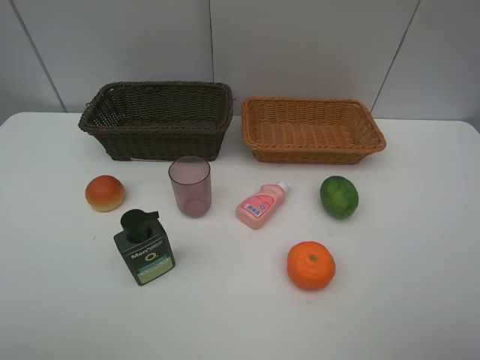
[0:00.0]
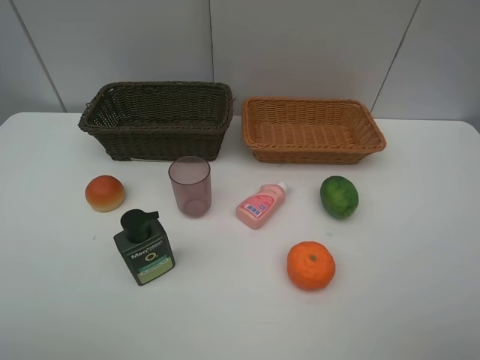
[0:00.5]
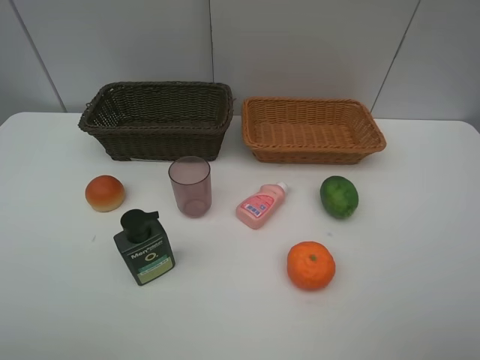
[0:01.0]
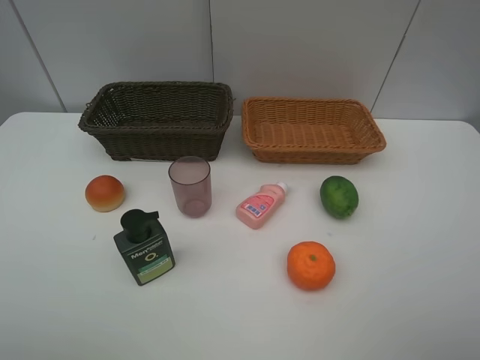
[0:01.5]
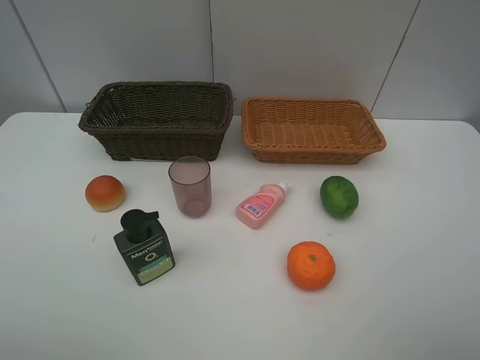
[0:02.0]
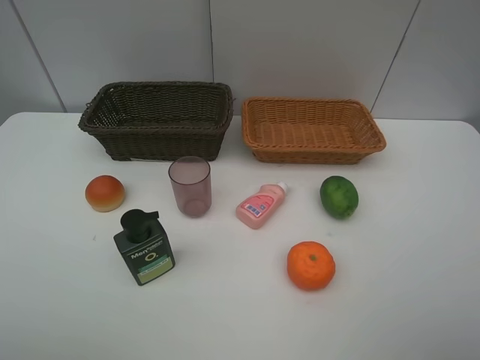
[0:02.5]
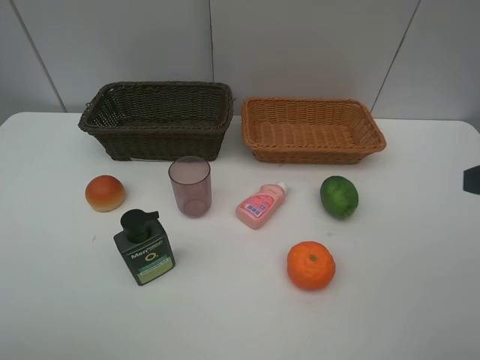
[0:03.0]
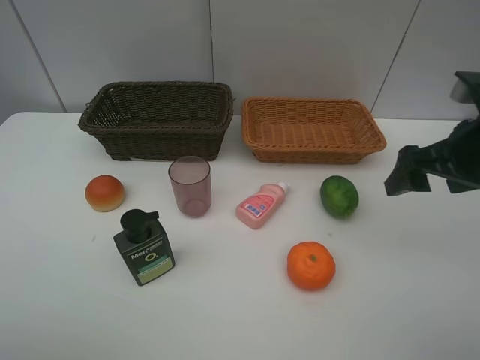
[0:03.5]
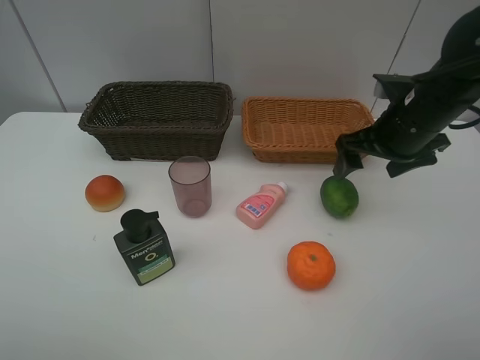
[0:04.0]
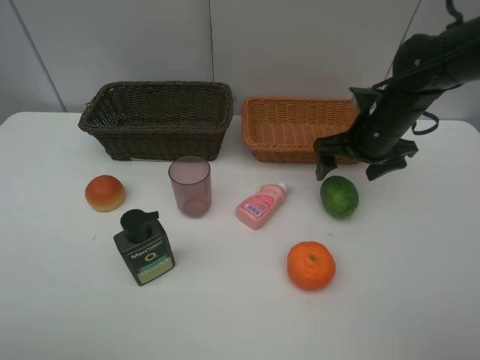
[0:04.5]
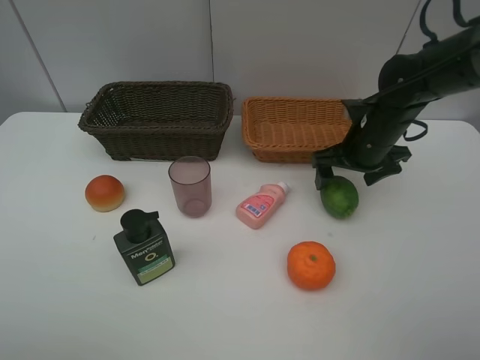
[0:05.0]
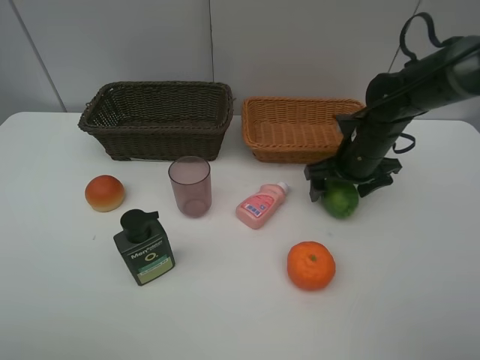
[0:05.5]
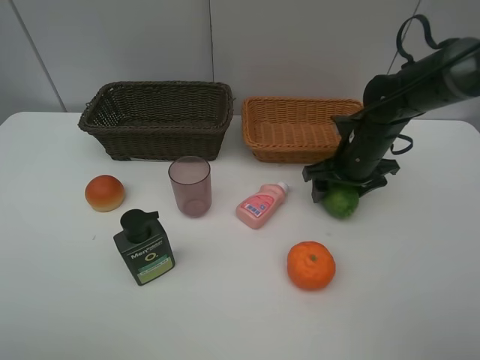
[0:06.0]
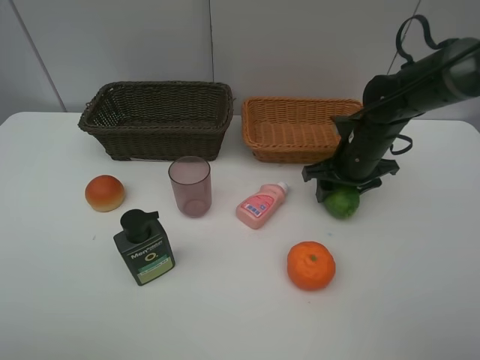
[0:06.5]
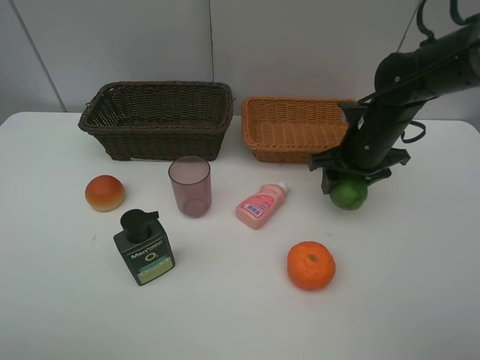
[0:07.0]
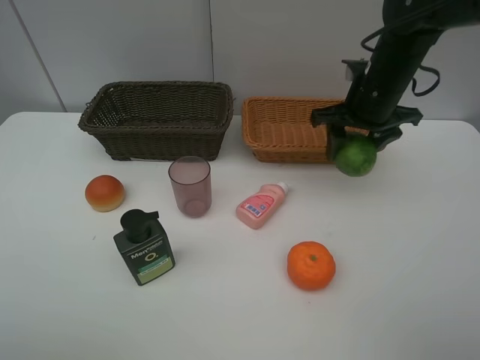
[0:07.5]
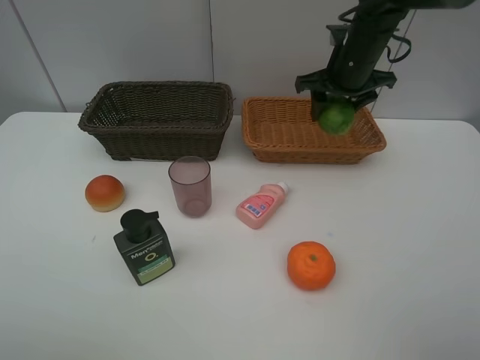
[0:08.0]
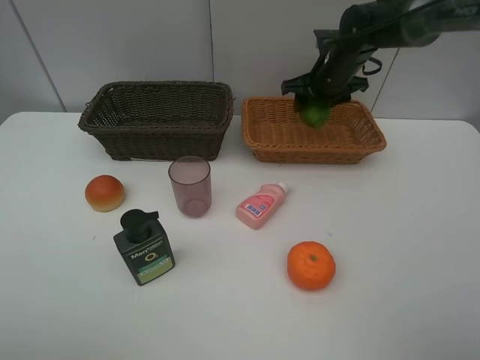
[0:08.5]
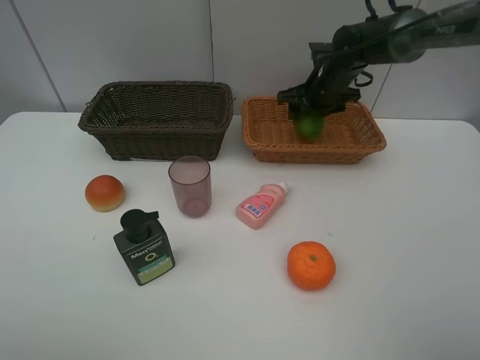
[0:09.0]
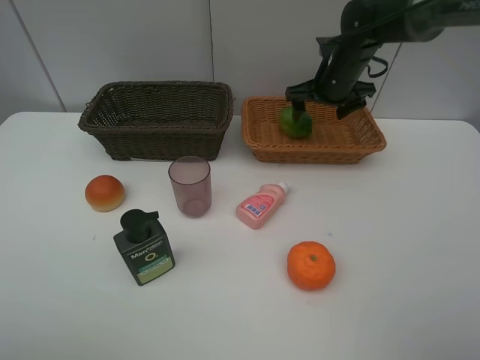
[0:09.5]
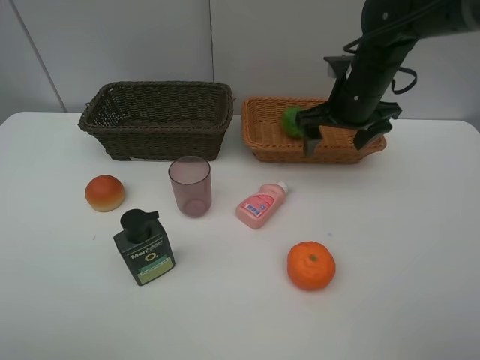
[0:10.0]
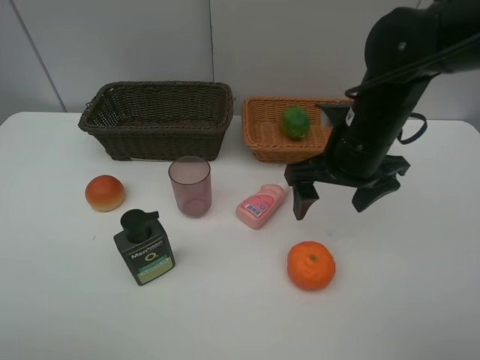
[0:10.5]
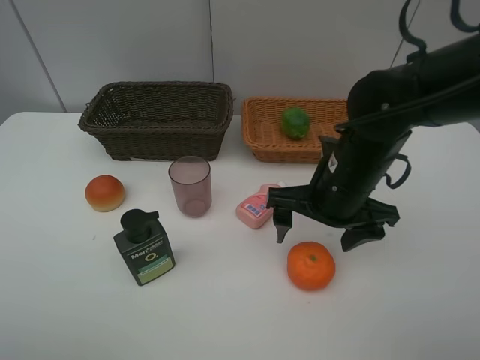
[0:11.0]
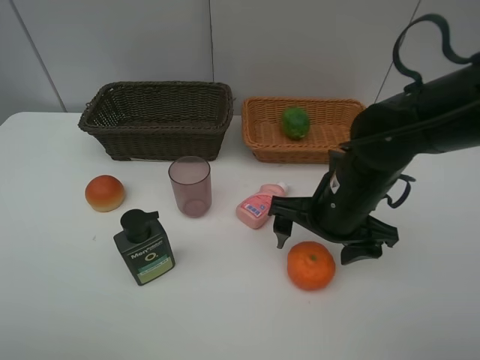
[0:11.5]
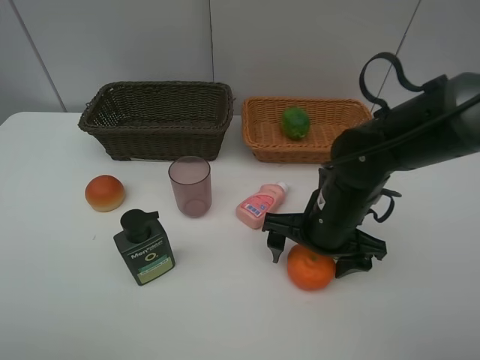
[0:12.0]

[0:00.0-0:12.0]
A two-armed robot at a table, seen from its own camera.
Task of the whole recording: place multiple objects separately in different baskets.
0:00.0 to 0:02.0: Neither gripper changes place.
0:02.0 to 0:04.0: The right gripper heads forward, covering roughly 30 cm.
0:04.0 to 0:06.0: The right gripper goes roughly 10 cm downward, and closes its fingers.
0:06.0 to 0:08.0: The right gripper heads upward and forward, covering roughly 15 cm.
0:08.0 to 0:10.0: The right gripper heads backward, covering approximately 5 cm, and opens.
0:10.0 to 0:12.0: The right gripper shifts some 15 cm backward and downward.

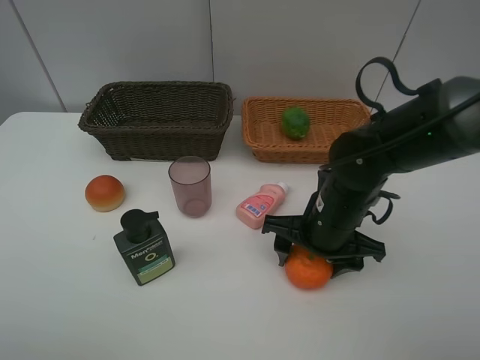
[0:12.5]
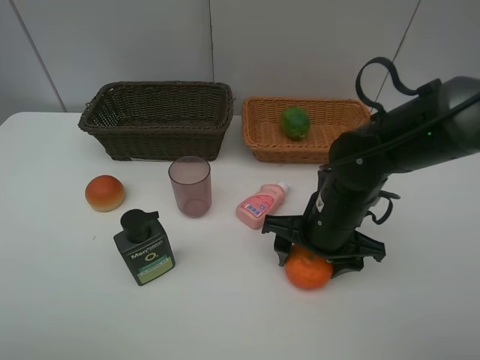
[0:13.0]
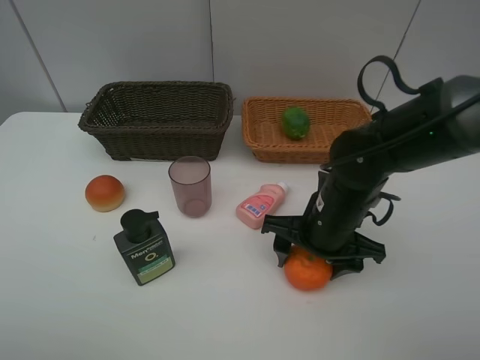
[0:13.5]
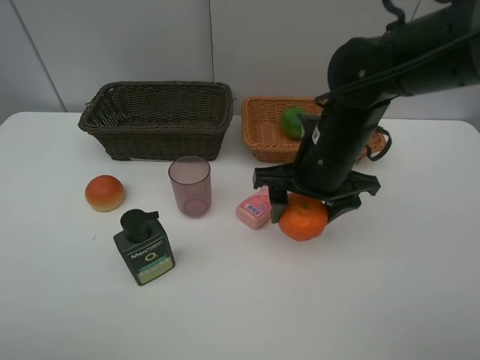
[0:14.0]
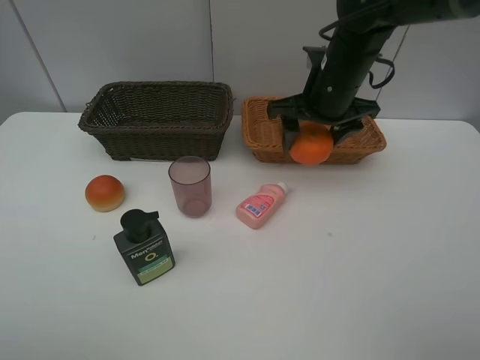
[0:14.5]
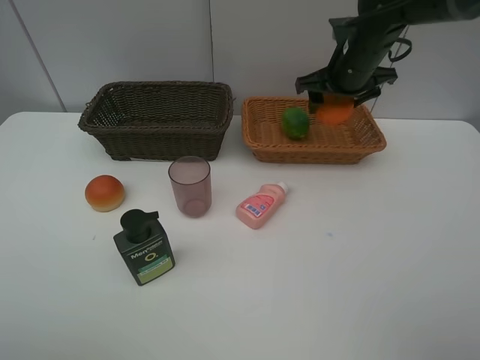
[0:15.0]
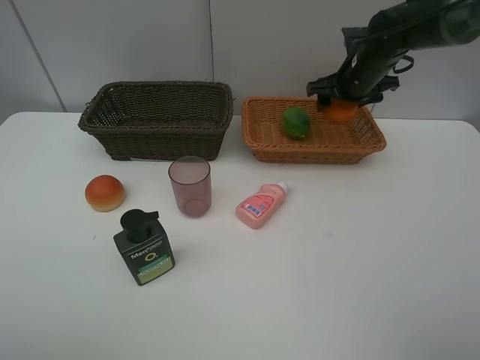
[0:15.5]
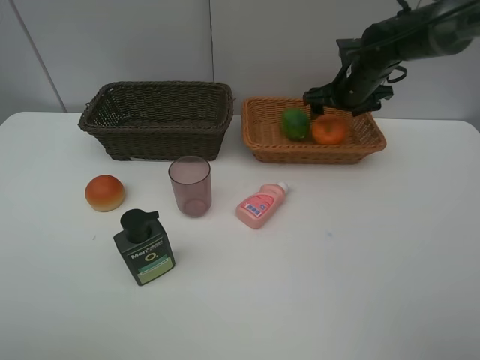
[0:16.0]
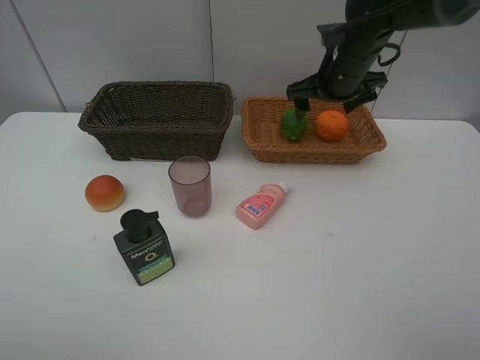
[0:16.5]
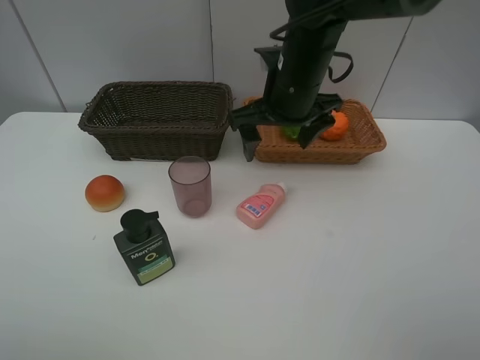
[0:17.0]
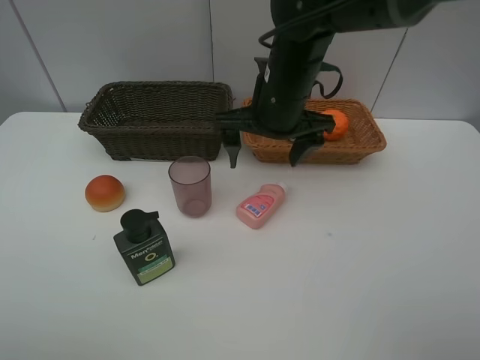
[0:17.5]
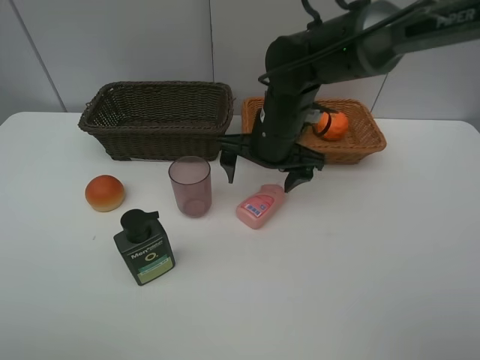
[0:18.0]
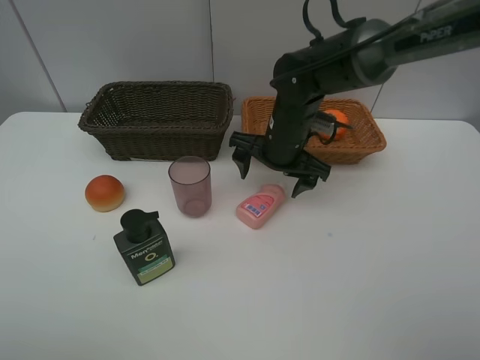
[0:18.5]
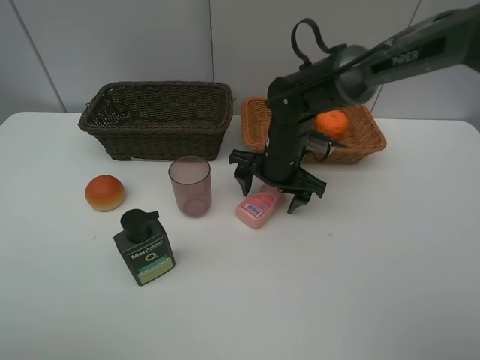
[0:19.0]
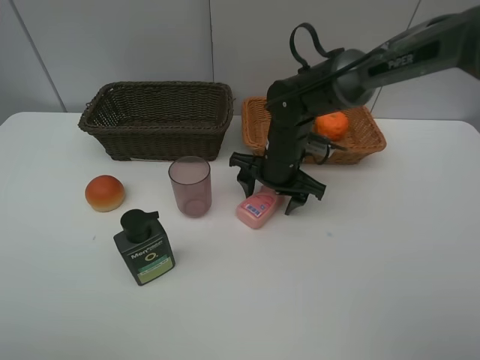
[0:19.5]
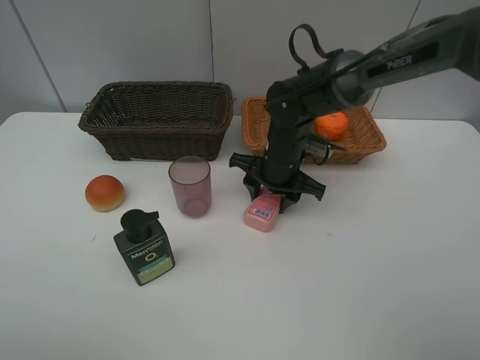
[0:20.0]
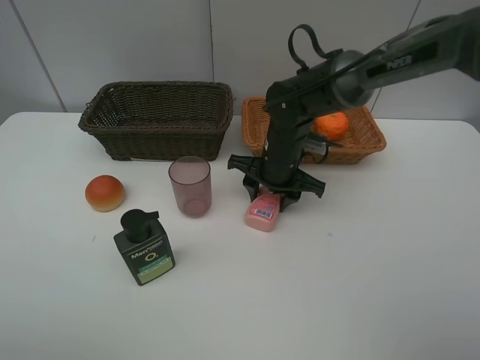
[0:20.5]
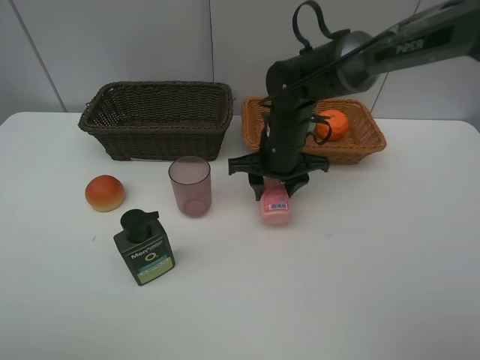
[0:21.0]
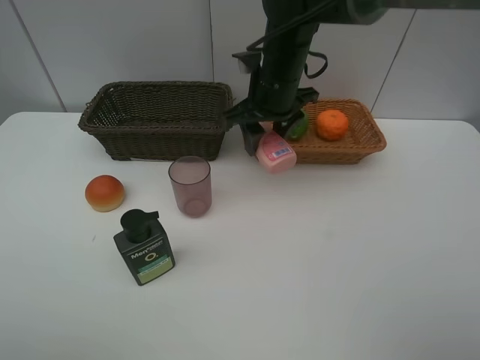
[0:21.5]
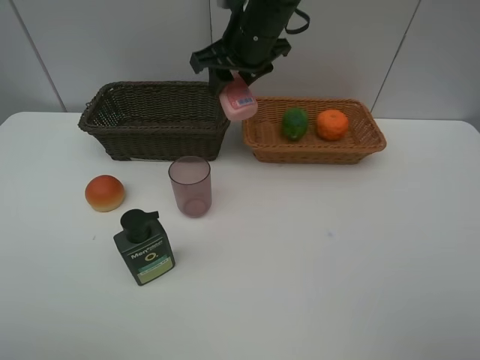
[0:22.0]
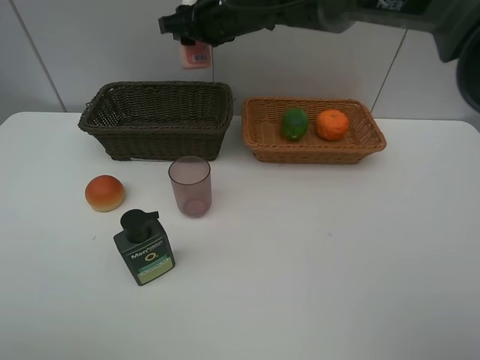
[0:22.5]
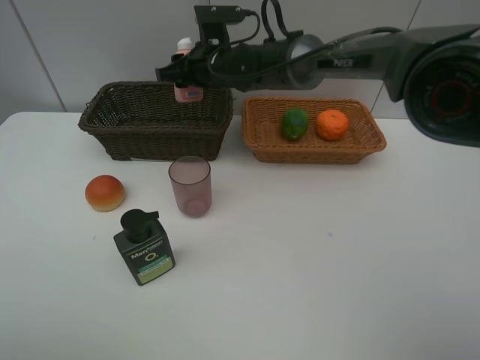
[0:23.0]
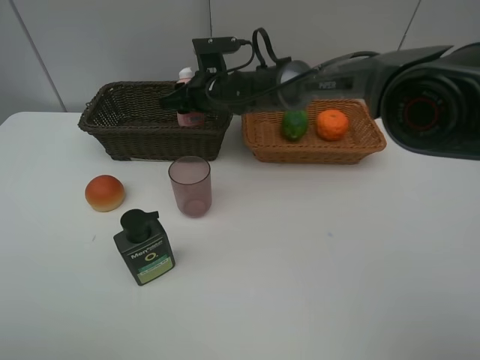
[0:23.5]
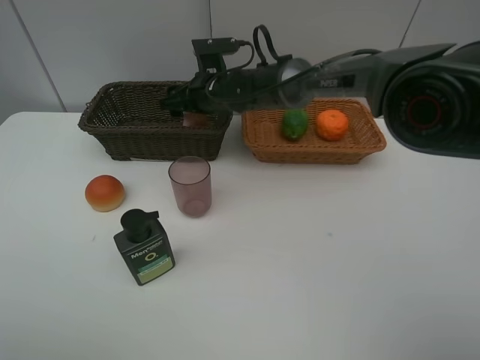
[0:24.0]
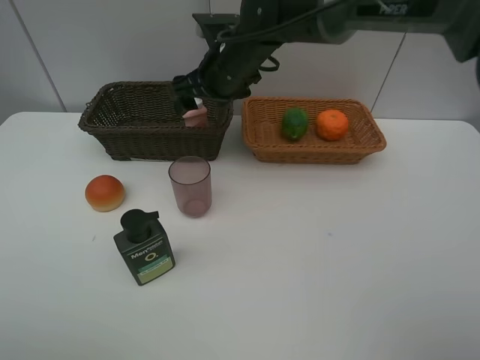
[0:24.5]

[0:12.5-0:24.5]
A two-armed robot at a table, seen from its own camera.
Task of the whole recording: place multiple objects separately in different baskets.
0:12.5 to 0:14.5: The right gripper goes some 20 cm forward and upward.
0:14.5 to 0:16.5: The right gripper opens up.
0:16.5 to 0:18.5: The right gripper moves to the left, downward and backward, approximately 15 cm.
0:18.5 to 0:20.5: The right gripper closes.
0:20.5 to 0:22.5: The right gripper is displaced upward, forward and to the left by about 20 cm.
0:22.5 to 0:24.5: The right gripper opens up.

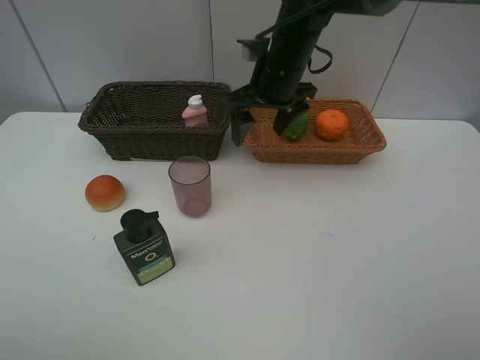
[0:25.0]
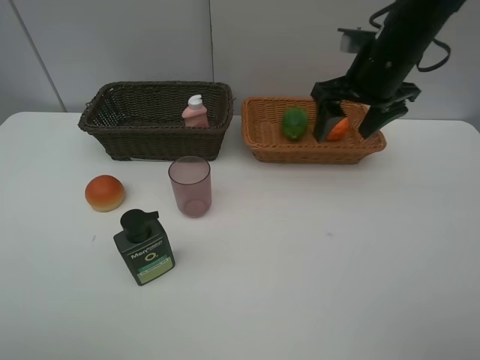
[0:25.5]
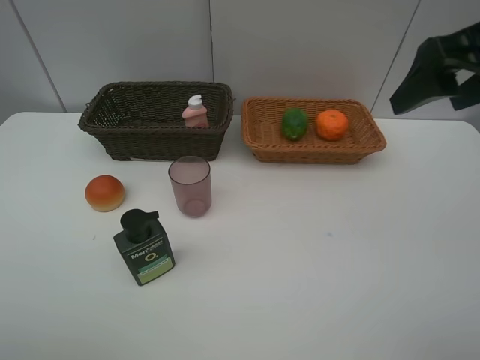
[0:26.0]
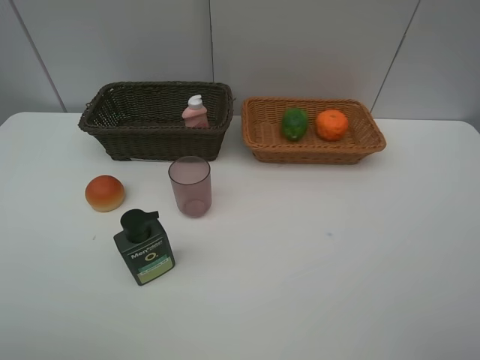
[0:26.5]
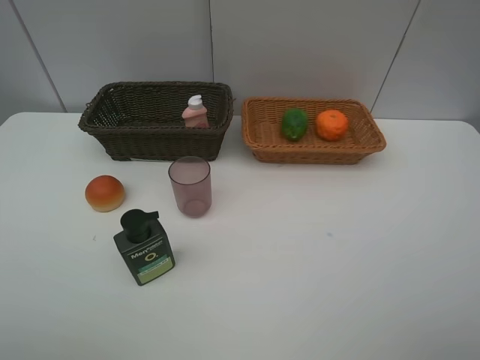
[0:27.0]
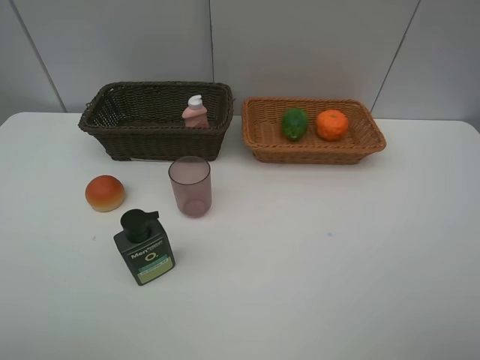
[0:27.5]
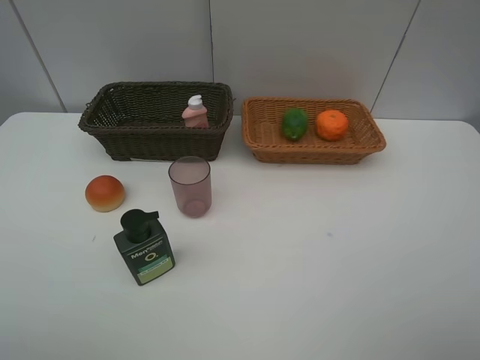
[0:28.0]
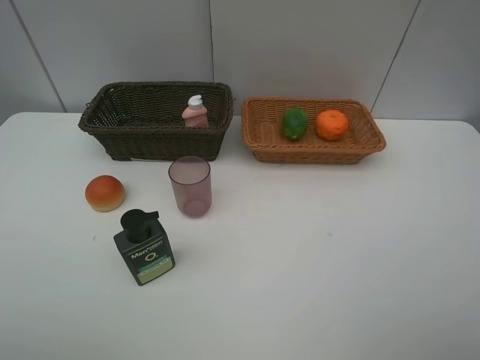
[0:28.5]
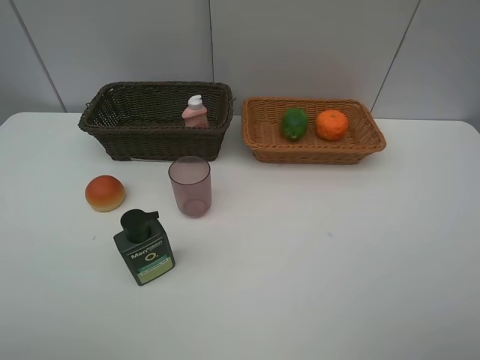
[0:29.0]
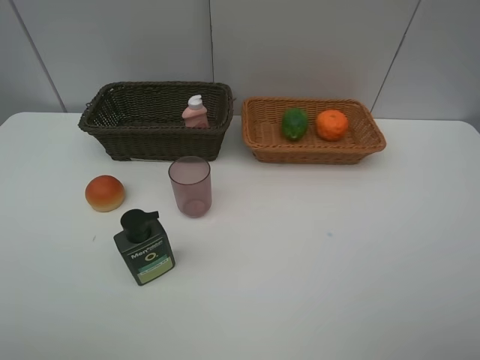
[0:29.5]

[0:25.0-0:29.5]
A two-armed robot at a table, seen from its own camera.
Task of the whole recording: place multiple objects separately in different baskets.
0:25.0 to 0:27.0: The right gripper goes some 50 cm backward and to the right.
